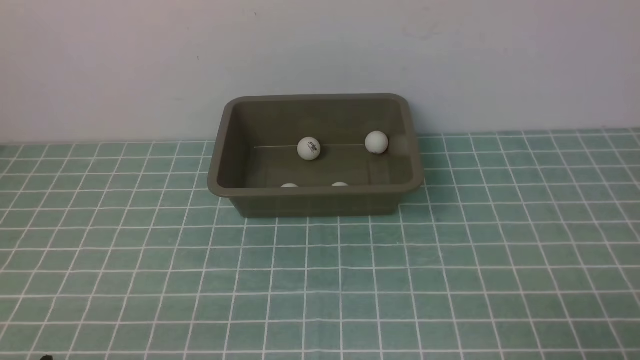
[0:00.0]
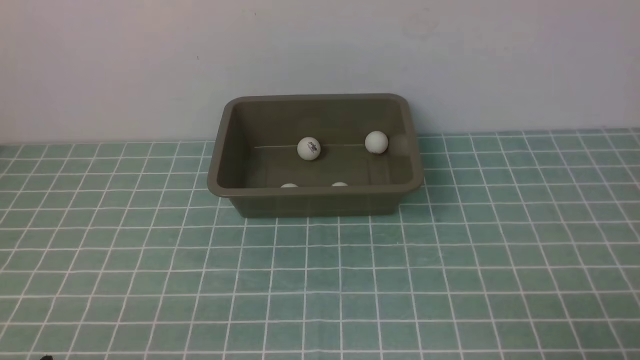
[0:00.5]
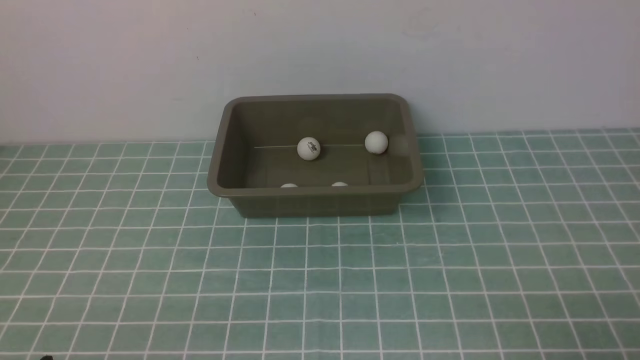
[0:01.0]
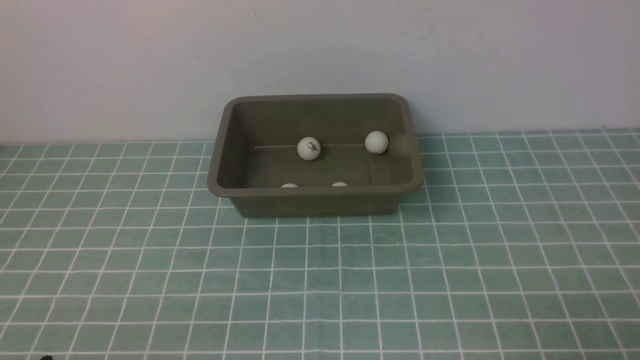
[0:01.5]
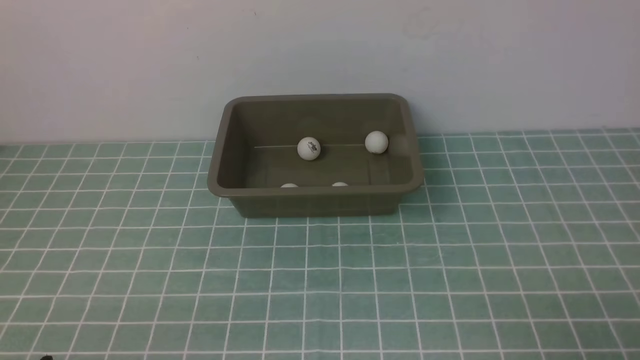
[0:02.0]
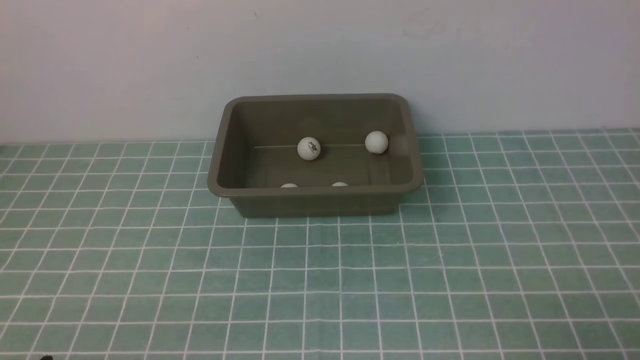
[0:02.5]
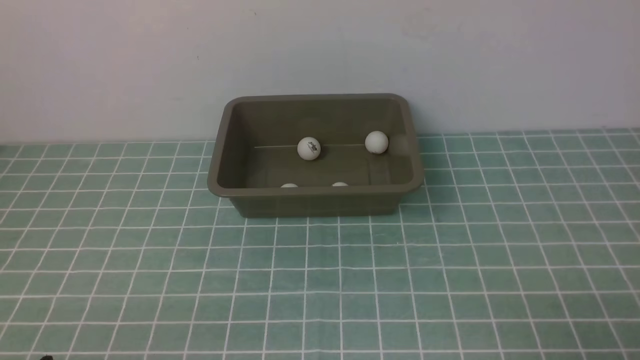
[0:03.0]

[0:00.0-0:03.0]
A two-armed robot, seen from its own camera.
0:00.0 to 0:03.0: The two grippers keep their place.
